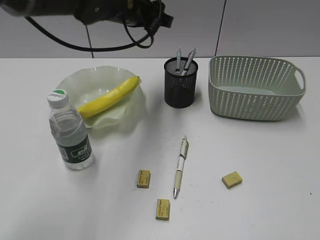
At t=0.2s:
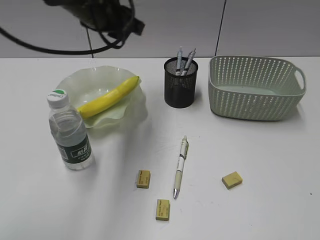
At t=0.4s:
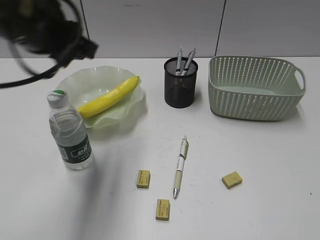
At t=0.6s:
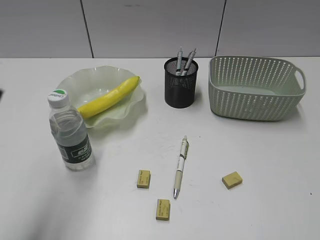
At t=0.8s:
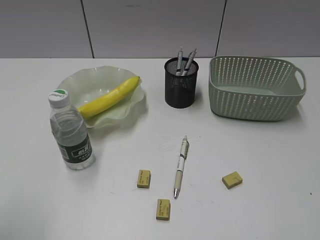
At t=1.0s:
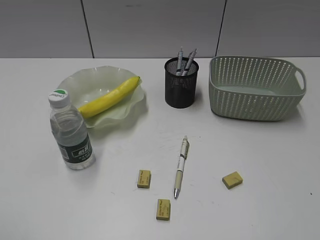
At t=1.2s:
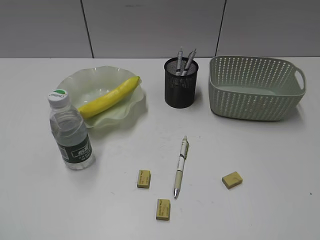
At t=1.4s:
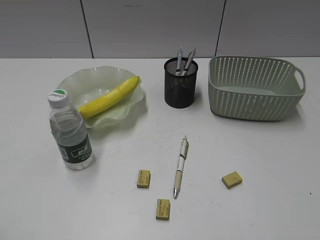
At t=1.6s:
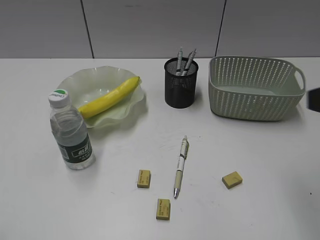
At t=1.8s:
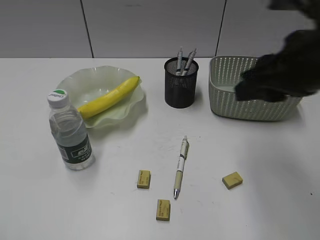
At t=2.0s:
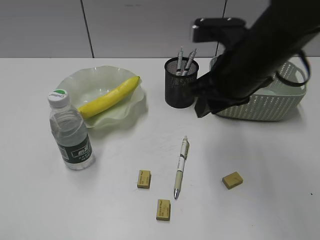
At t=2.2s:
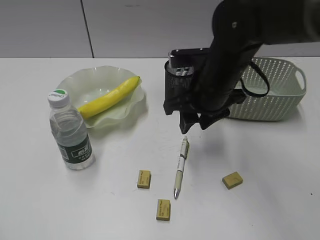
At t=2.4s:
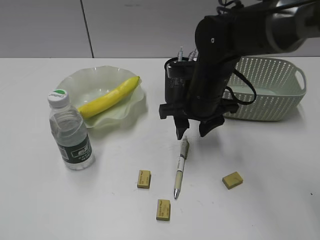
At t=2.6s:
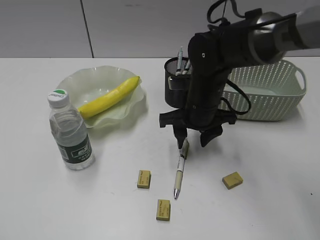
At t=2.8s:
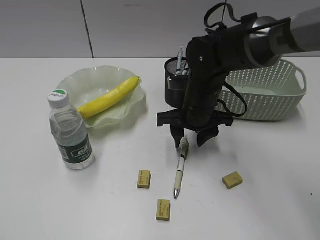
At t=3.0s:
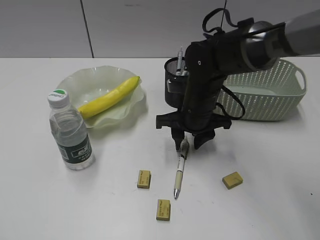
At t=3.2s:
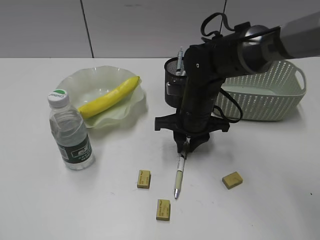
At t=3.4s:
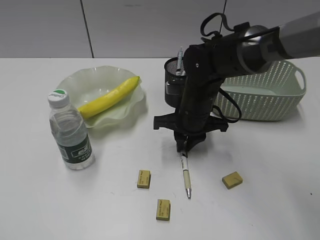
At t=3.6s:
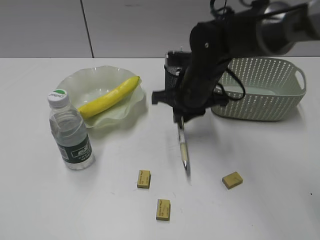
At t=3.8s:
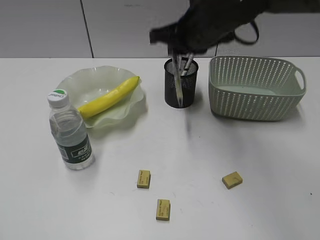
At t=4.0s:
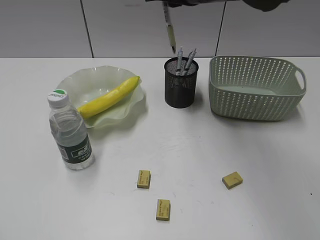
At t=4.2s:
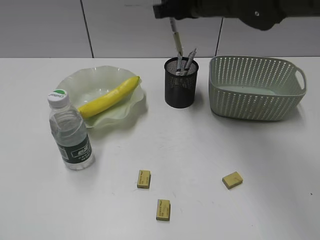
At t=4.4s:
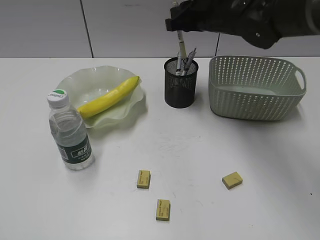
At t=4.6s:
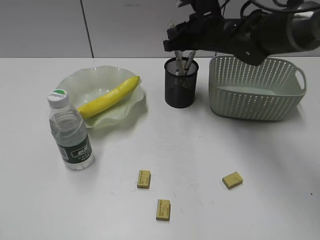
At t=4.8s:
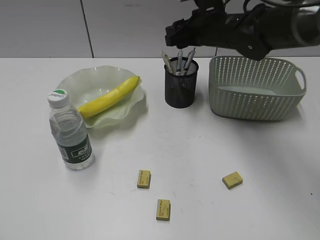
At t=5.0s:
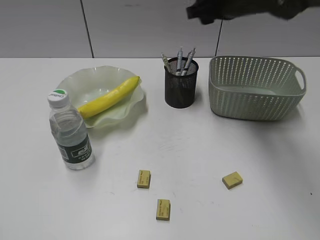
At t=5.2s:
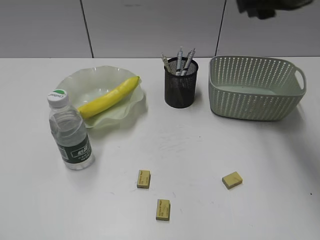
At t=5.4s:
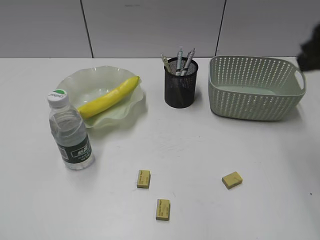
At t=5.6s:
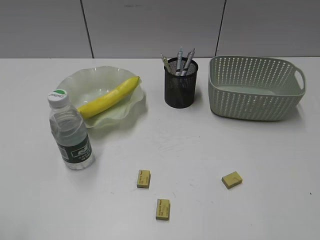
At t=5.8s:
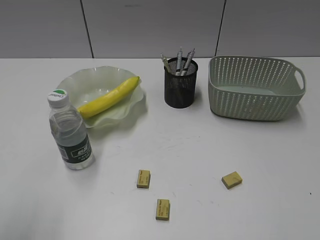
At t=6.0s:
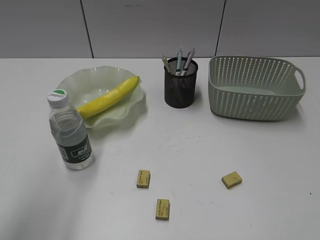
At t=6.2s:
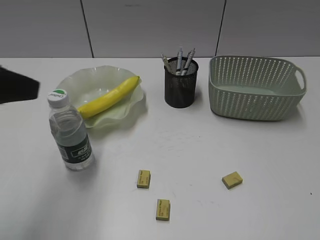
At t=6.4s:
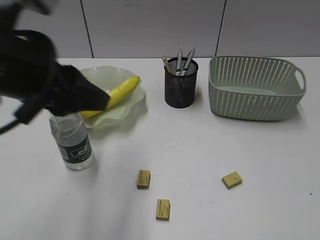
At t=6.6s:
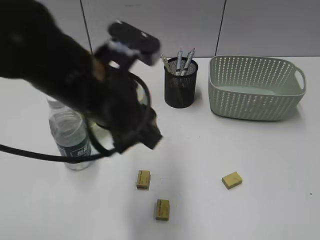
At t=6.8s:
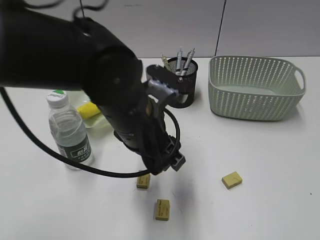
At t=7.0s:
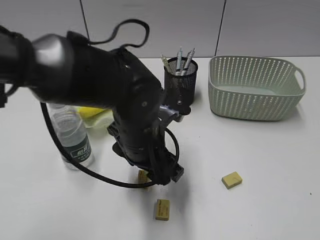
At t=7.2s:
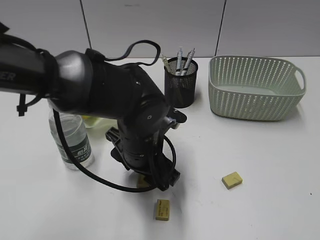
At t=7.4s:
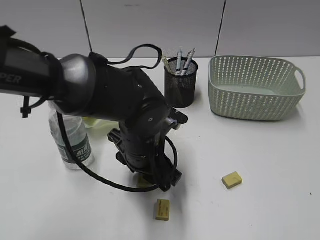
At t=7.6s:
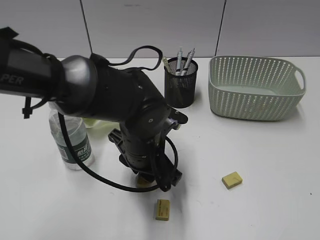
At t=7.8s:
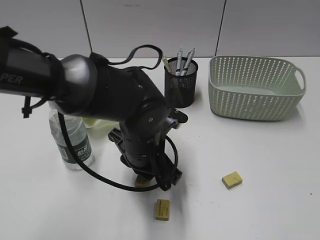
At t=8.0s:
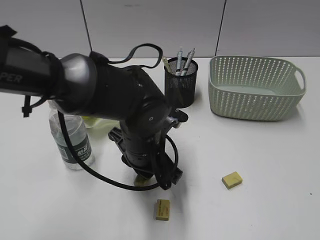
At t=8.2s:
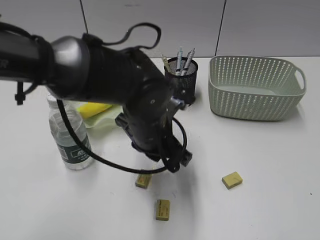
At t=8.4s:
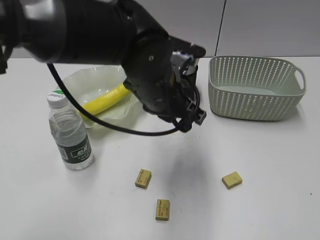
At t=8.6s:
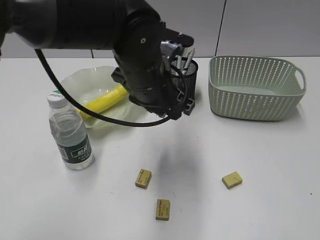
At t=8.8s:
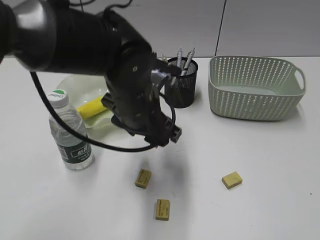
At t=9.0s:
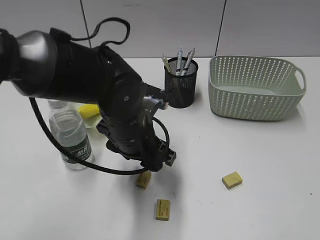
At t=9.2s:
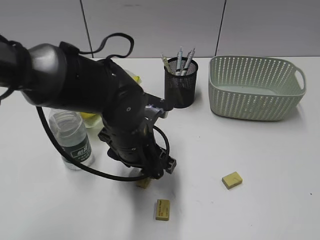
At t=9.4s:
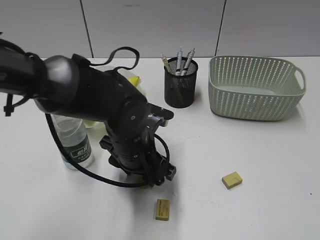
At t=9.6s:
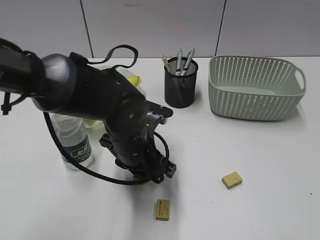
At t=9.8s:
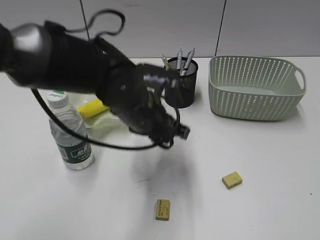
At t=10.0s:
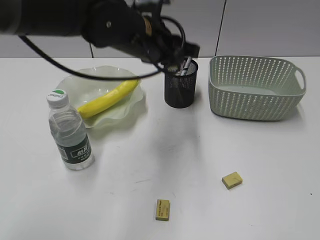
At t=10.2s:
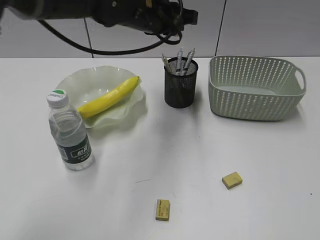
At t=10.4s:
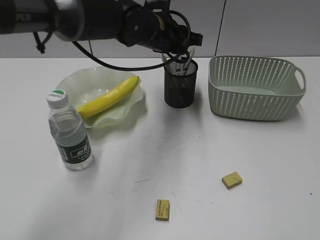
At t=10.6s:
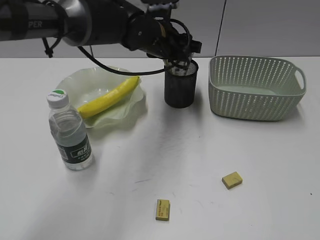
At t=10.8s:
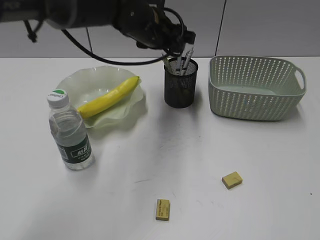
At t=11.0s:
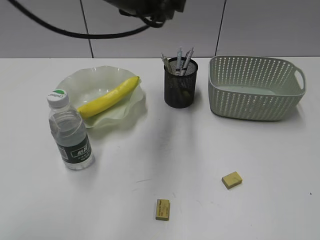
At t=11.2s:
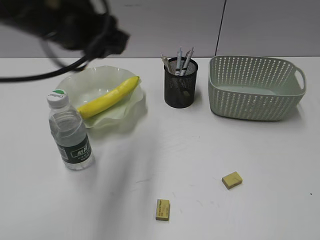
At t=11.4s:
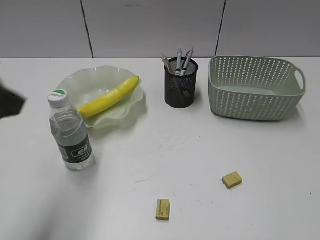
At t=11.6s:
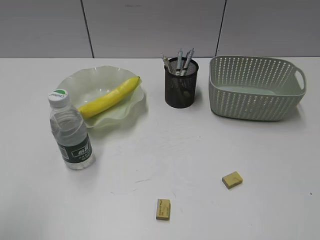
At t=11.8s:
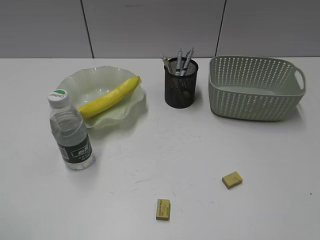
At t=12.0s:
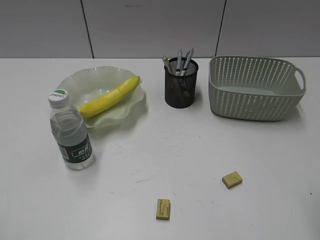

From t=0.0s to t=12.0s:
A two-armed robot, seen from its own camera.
Step, from t=0.0s to t=3.2s: Grasp the yellow pen with right gripper.
Step, from t=3.4s to t=4.8s: Place the yellow pen in pen holder with right gripper.
Step, from t=5.0s to t=9.6s: Grasp the eraser with left gripper.
Step, from t=9.8s to t=10.6s: Place the eraser in pen holder with left gripper.
From t=0.0s to t=1.6s: The right gripper shifts approximately 15 cm forward and to the left, while the left gripper goes approximately 50 cm backward and to the left.
From t=1.6s to t=3.0s: The right gripper travels downward, forward and to the left by some 30 cm.
From t=3.0s to t=4.4s: The right gripper travels upward and forward by approximately 15 cm, and closes.
From t=4.4s to t=6.0s: The left gripper travels forward and to the right by roughly 15 cm, while the right gripper moves backward and to the right, approximately 50 cm, and opens up.
From t=6.0s to t=7.6s: The left gripper travels to the right, downward and forward by some 35 cm, and opens, then closes once more.
From t=7.6s to t=9.0s: The right gripper closes. Meanwhile the left gripper travels upward and back again, approximately 10 cm each way, and opens.
From t=9.0s to t=10.4s: The left gripper moves forward and upward, roughly 15 cm, and closes.
From t=10.4s to t=12.0s: The left gripper heads backward and to the left, covering some 50 cm; the right gripper moves forward and to the left, approximately 10 cm.

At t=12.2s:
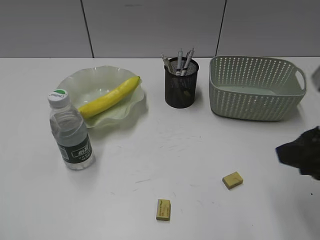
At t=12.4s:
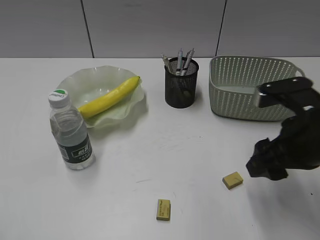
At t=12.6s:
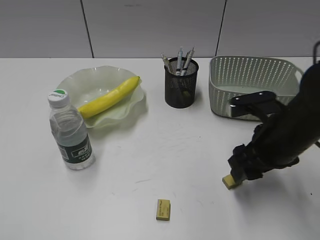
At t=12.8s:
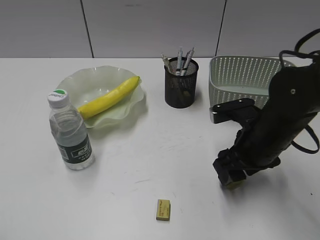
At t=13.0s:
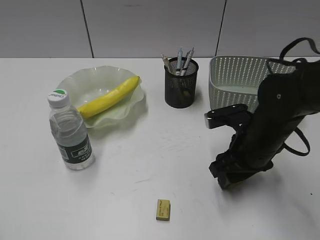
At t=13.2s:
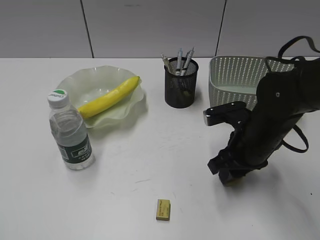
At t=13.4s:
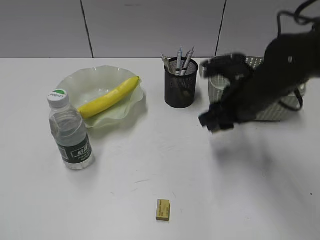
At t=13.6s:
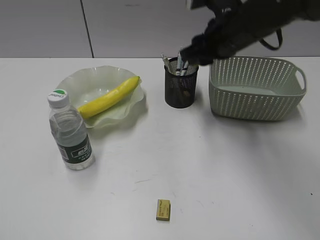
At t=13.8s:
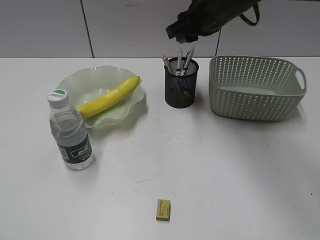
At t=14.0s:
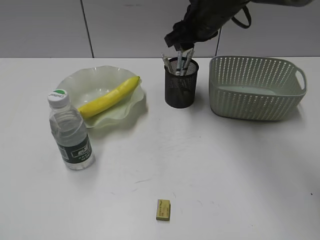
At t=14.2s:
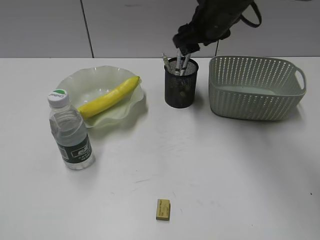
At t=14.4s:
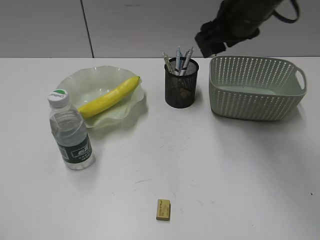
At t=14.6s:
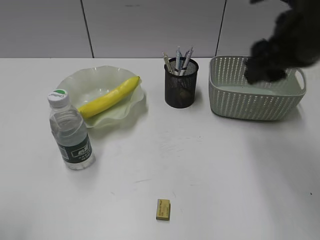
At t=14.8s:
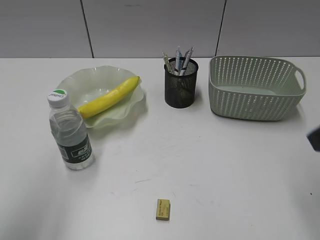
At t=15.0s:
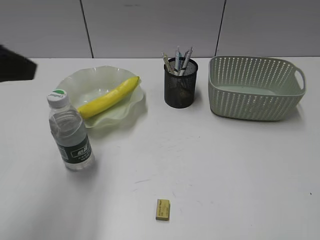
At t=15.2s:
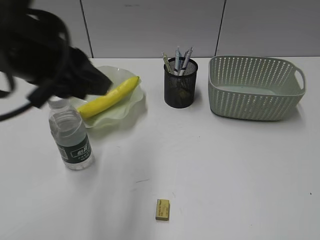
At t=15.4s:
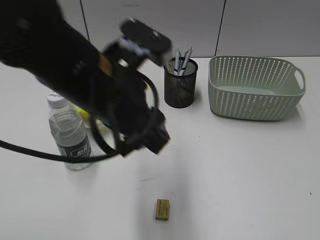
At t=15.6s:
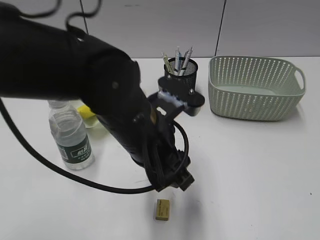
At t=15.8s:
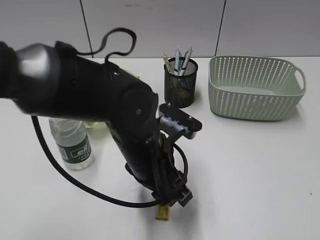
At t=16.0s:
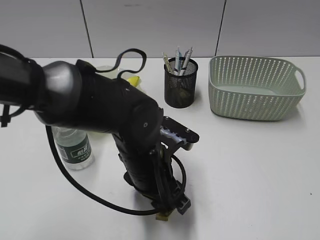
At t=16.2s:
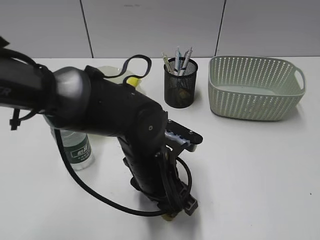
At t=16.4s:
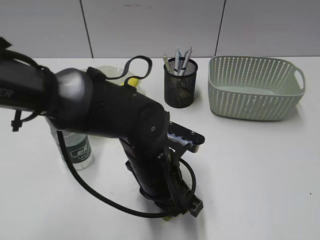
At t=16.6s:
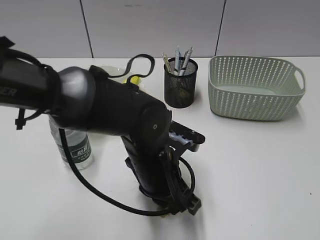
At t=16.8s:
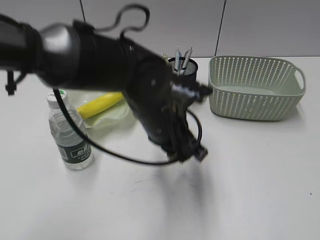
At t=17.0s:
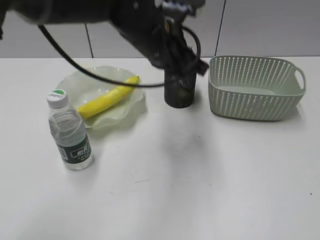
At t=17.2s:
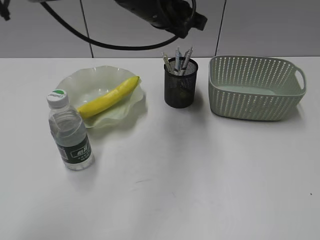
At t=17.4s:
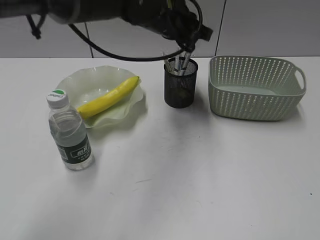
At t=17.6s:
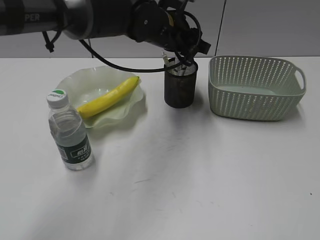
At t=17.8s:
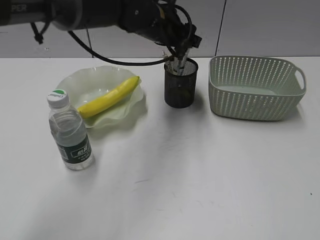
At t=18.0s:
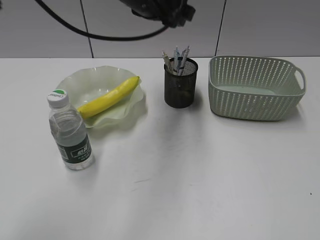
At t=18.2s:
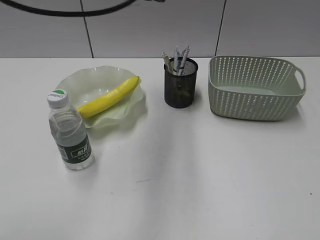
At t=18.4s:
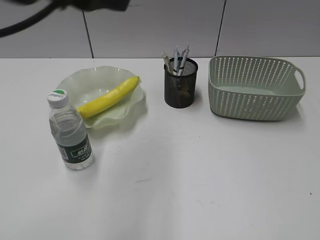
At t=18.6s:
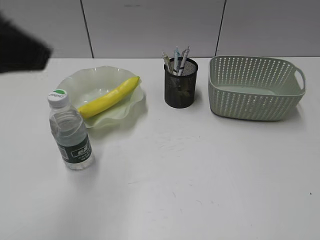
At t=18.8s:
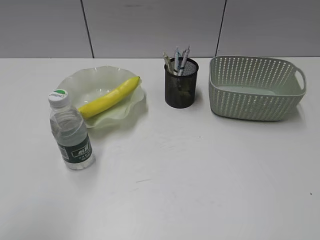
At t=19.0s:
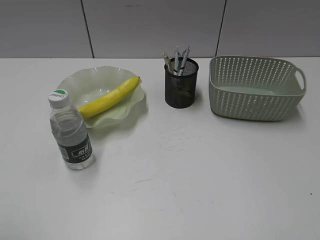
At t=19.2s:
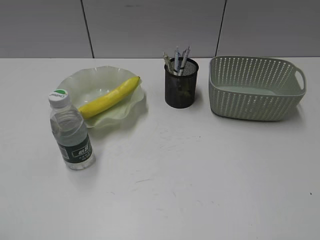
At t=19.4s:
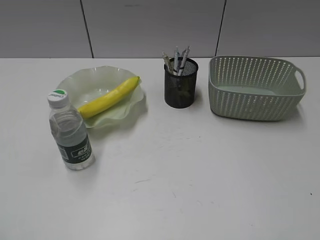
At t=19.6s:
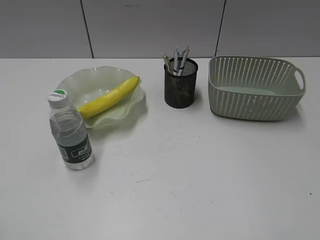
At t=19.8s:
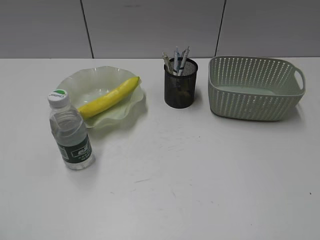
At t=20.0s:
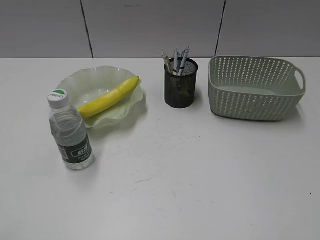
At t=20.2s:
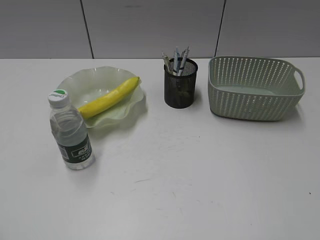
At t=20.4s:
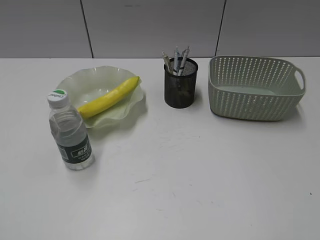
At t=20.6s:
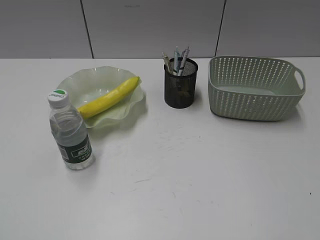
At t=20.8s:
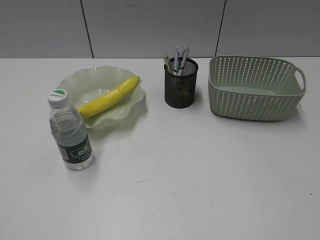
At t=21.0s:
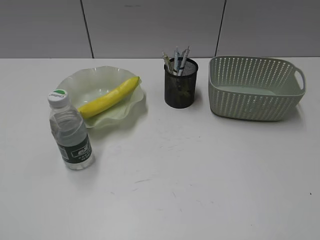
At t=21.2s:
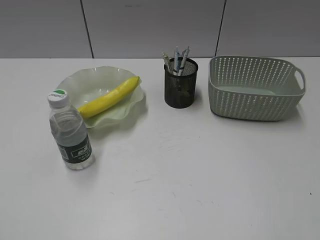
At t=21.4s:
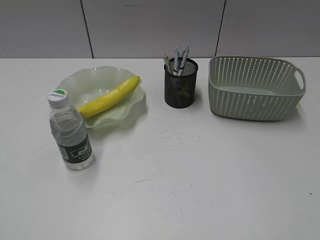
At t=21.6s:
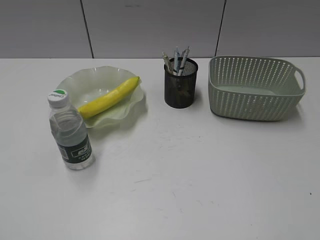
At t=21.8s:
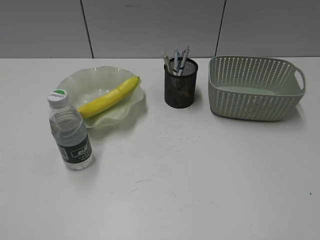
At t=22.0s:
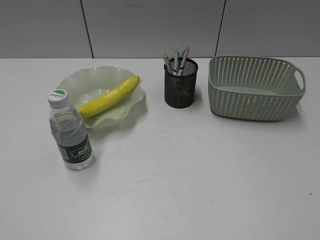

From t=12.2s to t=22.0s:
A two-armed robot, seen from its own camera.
Step, from t=13.4s to t=14.2s: Place the eraser in pen holder with right gripper.
Step, from t=14.4s to t=16.4s: Grasp the eraser with left gripper.
Step, from t=16.6s to t=17.8s: Place the eraser in pen holder with left gripper.
From t=12.2s to t=13.6s: The right gripper goes roughly 25 cm forward and to the left, and closes.
From t=13.6s to t=15.0s: The right gripper travels backward and to the right by roughly 35 cm. The left gripper shifts approximately 25 cm forward and to the right.
From t=15.0s to t=16.4s: The right gripper goes about 10 cm backward; the left gripper travels downward and to the right by some 30 cm, and opens and closes again.
From t=16.4s to t=17.8s: The left gripper is displaced forward and upward by approximately 25 cm, and opens.
From t=17.8s to t=19.2s: The left gripper goes about 50 cm backward and to the left.
From t=20.6s to t=22.0s: Both grippers stay about where they are.
